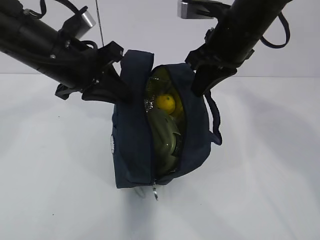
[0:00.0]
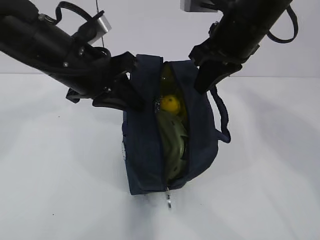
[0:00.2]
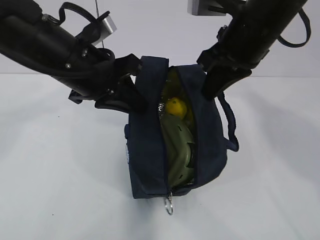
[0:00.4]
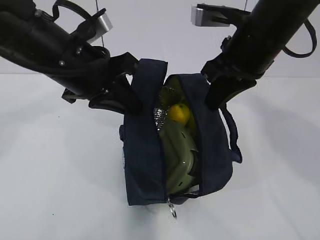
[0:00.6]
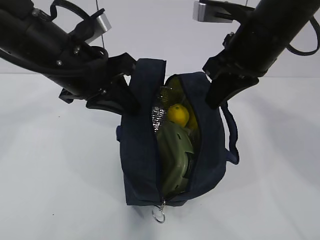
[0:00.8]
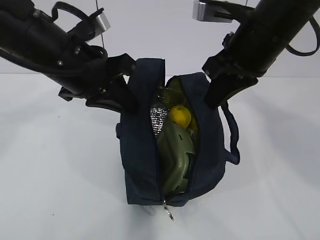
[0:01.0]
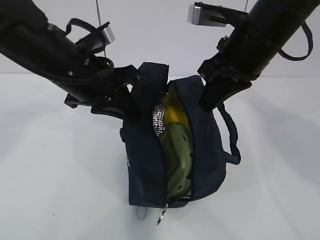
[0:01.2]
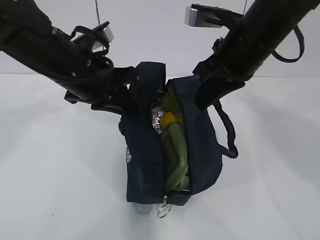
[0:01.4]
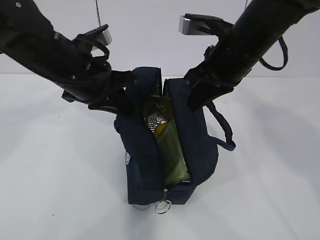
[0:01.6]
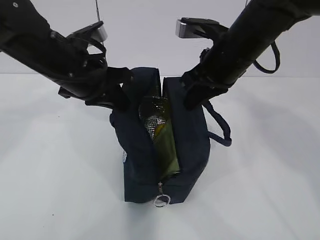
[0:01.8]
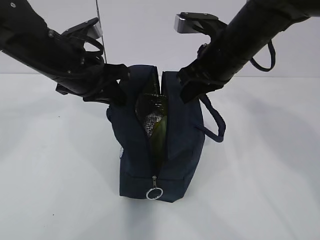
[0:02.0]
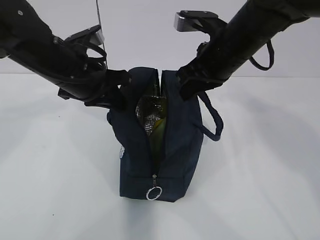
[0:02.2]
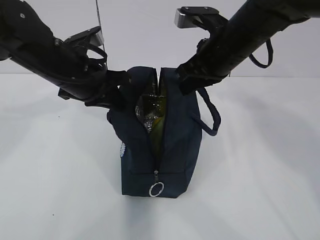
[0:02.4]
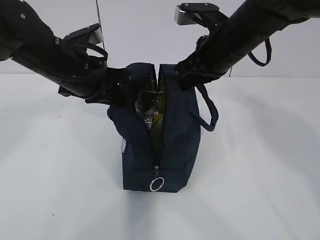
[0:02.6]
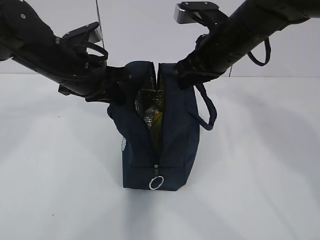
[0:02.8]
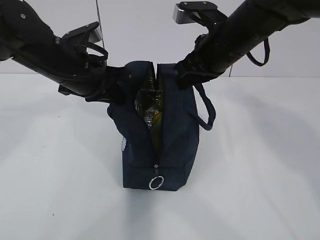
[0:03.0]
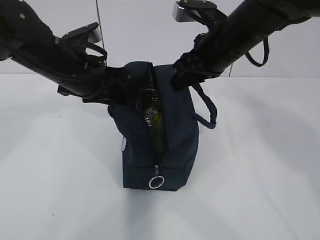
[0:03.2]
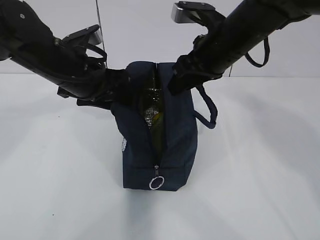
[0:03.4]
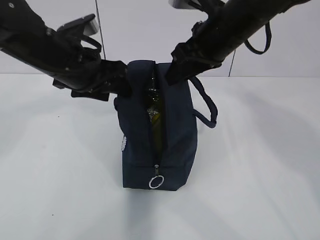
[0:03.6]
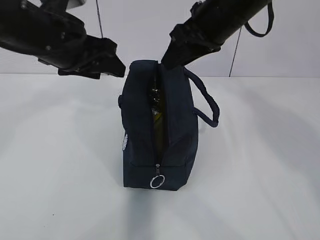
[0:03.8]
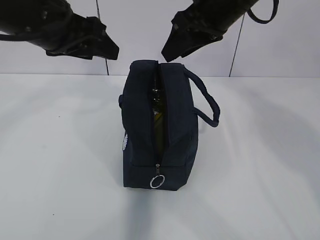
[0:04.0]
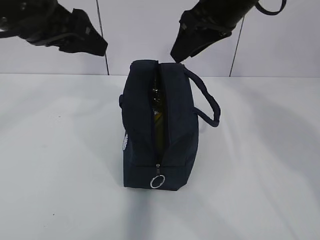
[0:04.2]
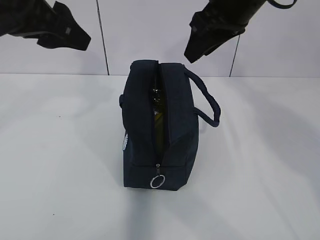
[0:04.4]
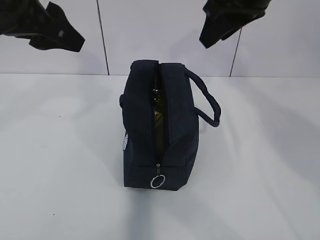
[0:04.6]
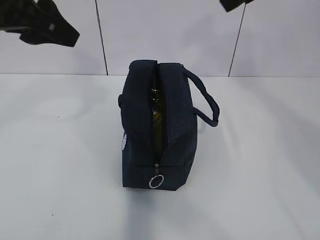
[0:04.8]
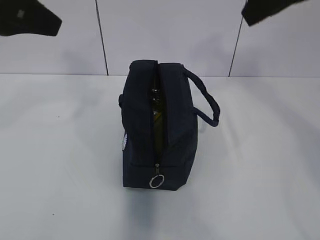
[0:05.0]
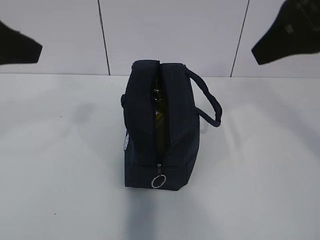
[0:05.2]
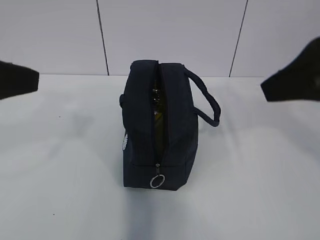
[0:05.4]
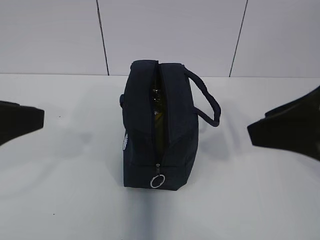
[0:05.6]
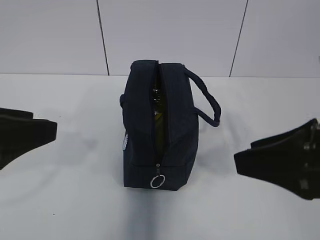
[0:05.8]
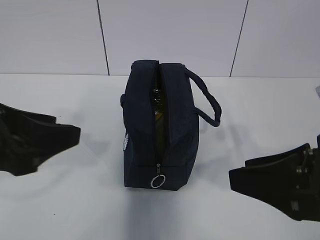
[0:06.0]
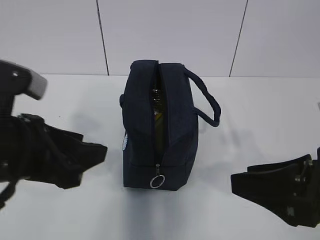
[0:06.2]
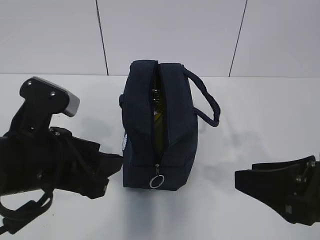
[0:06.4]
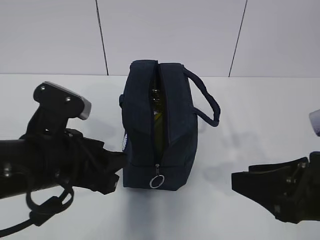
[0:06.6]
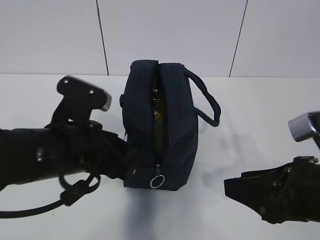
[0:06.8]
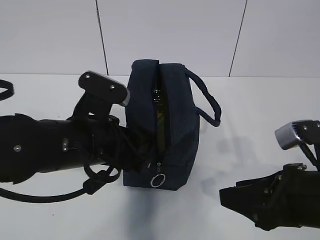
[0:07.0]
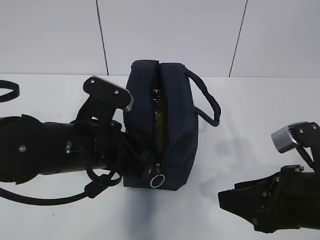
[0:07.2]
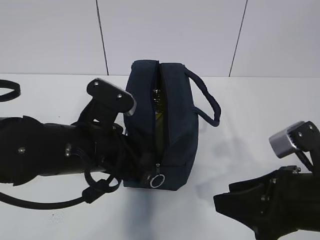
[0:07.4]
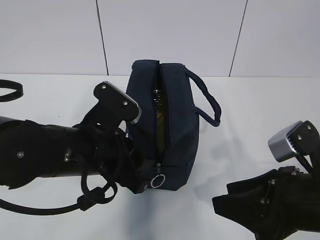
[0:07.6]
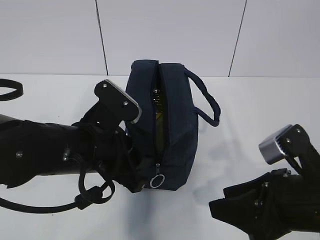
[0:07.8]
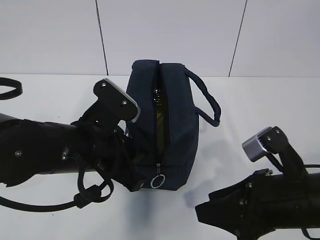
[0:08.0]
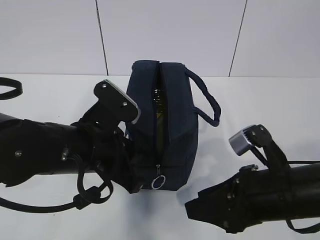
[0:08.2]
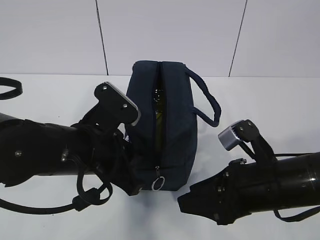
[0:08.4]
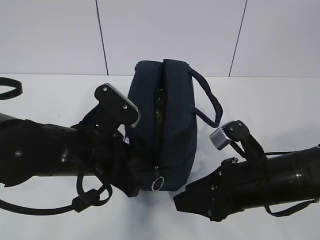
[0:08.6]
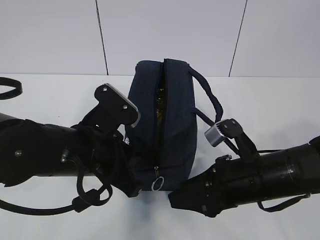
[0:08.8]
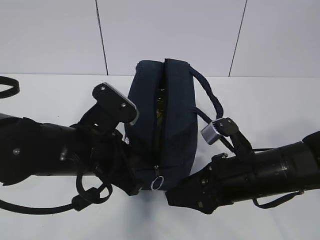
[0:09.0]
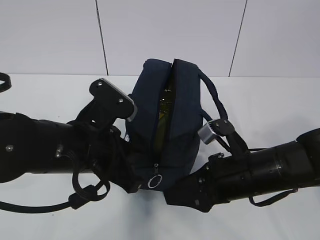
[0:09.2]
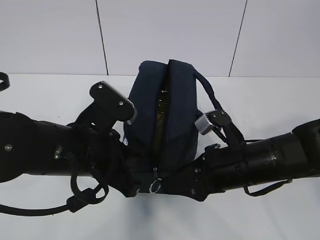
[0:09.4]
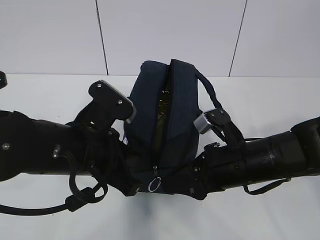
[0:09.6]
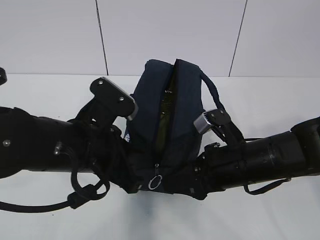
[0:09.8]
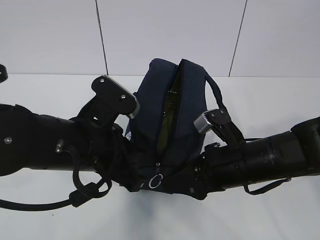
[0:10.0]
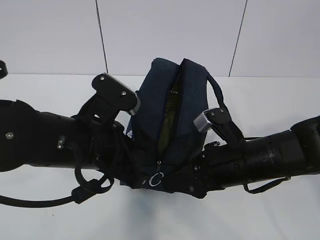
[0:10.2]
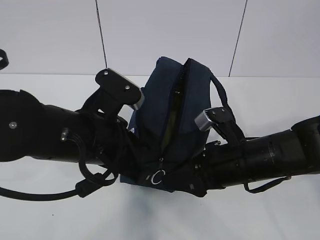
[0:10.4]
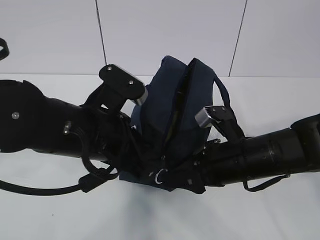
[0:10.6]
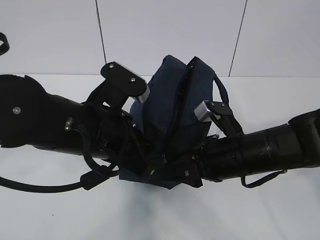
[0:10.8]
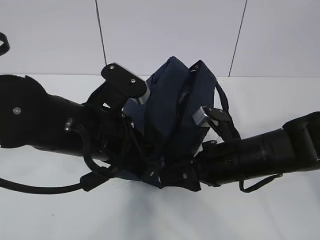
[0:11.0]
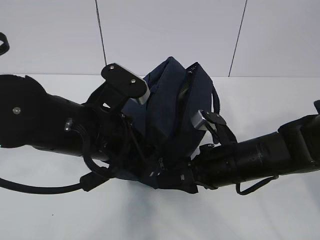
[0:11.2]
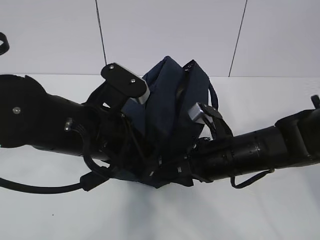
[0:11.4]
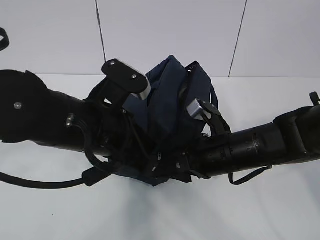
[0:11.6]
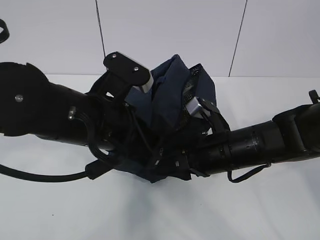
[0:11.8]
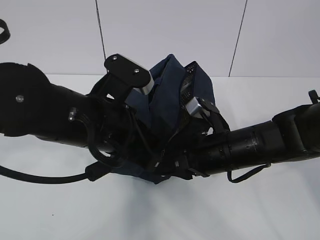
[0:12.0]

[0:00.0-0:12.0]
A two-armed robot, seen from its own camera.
0:00.0 to 0:03.0: The grippers make only small movements.
0:03.0 to 0:04.4: The right gripper travels upward by roughly 10 cm, and opens its fingers, while the left gripper shifts roughly 15 cm upward and backward, and opens.
0:04.4 to 0:06.0: The left gripper is displaced backward and downward by roughly 15 cm. The right gripper is displaced backward and downward by roughly 25 cm.
0:06.0 to 0:07.6: The left gripper heads to the right, downward and forward, covering some 15 cm. The right gripper travels downward by some 5 cm.
0:07.6 to 0:09.0: The right gripper travels forward and downward by some 10 cm. The left gripper closes its fingers.

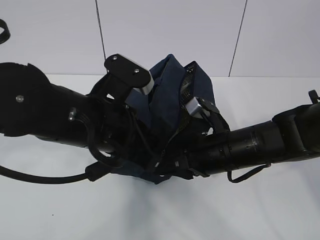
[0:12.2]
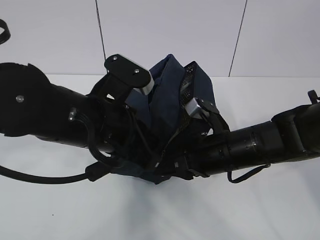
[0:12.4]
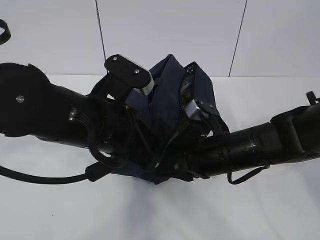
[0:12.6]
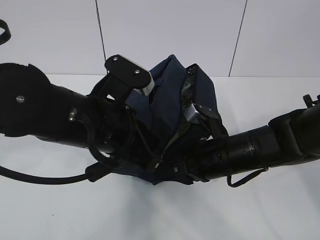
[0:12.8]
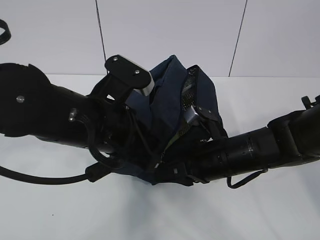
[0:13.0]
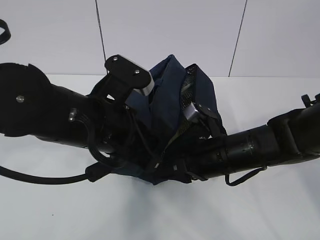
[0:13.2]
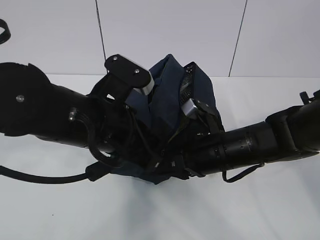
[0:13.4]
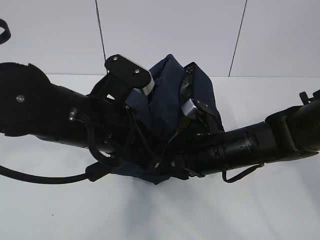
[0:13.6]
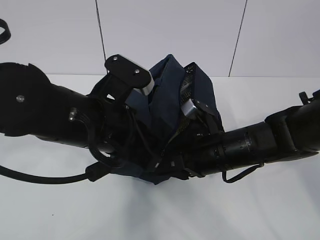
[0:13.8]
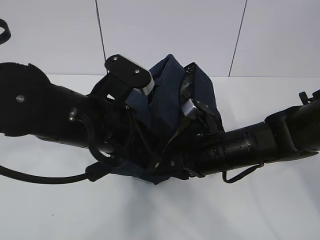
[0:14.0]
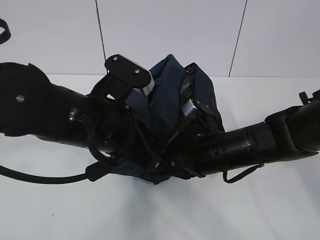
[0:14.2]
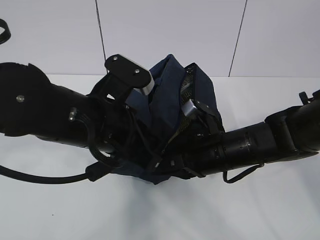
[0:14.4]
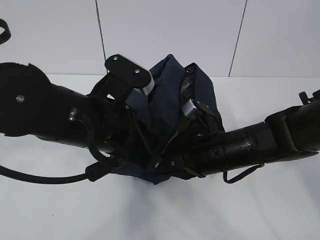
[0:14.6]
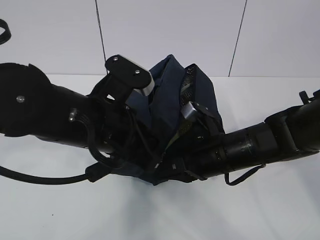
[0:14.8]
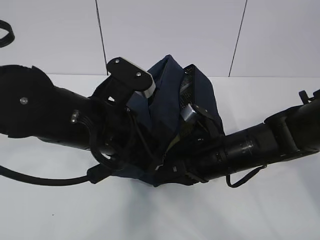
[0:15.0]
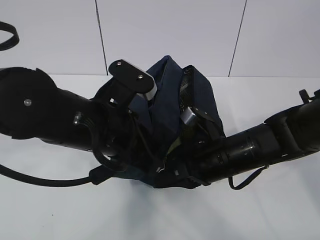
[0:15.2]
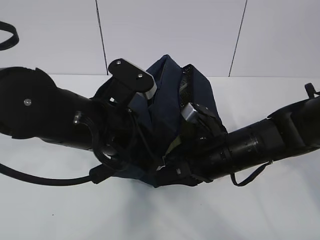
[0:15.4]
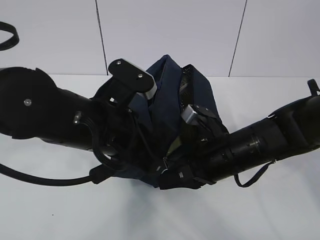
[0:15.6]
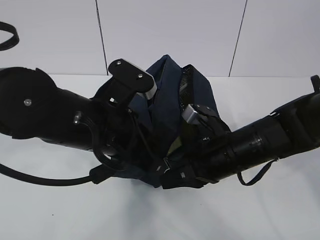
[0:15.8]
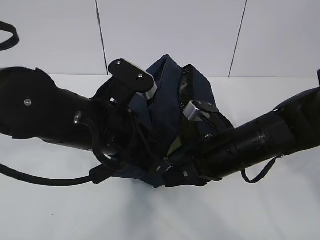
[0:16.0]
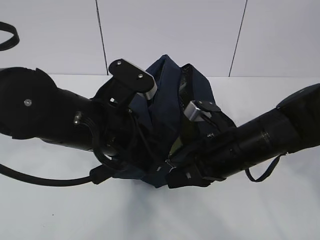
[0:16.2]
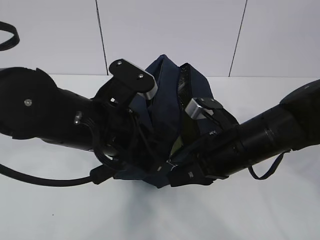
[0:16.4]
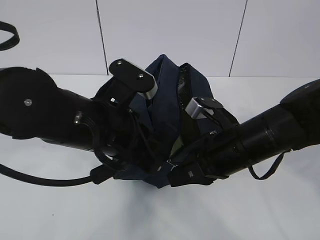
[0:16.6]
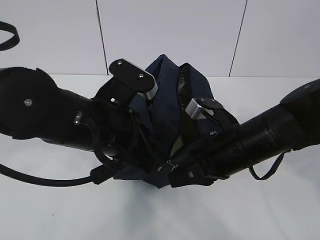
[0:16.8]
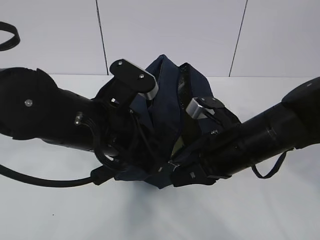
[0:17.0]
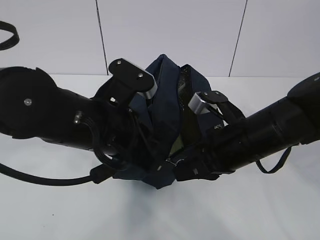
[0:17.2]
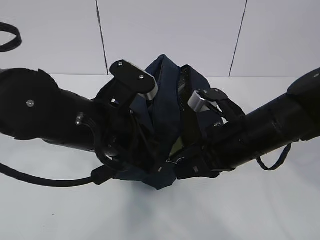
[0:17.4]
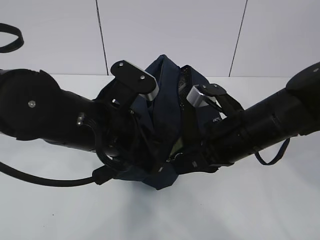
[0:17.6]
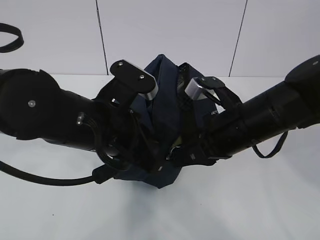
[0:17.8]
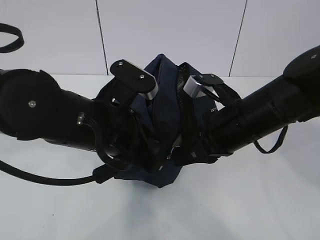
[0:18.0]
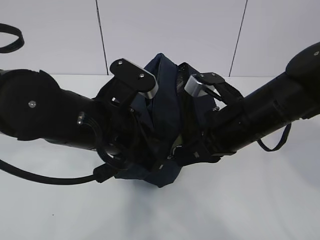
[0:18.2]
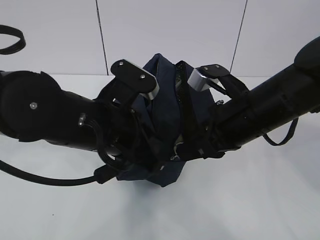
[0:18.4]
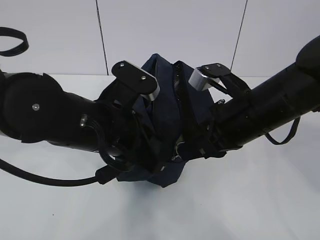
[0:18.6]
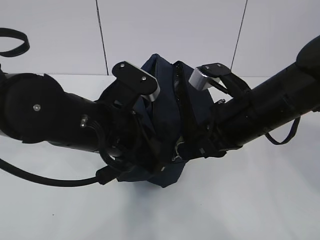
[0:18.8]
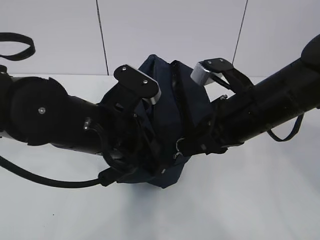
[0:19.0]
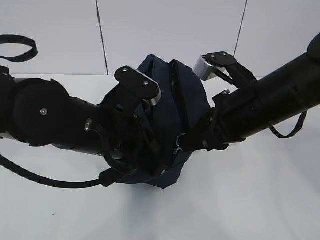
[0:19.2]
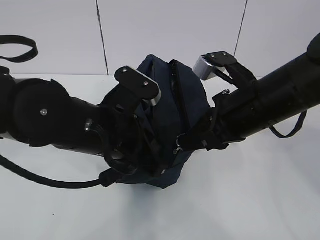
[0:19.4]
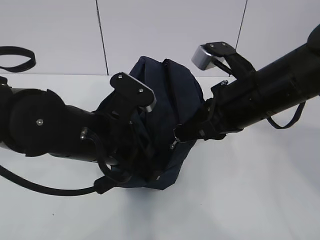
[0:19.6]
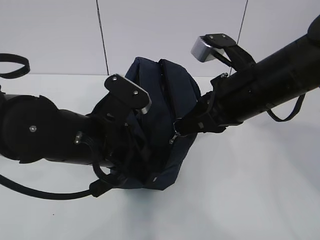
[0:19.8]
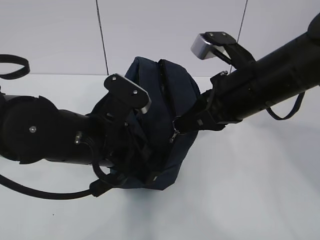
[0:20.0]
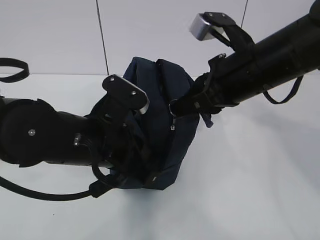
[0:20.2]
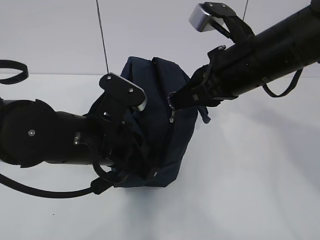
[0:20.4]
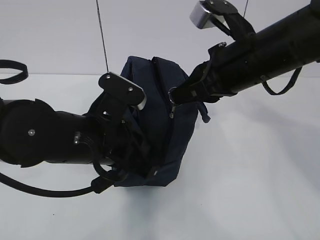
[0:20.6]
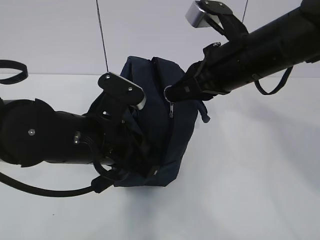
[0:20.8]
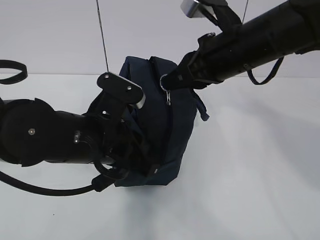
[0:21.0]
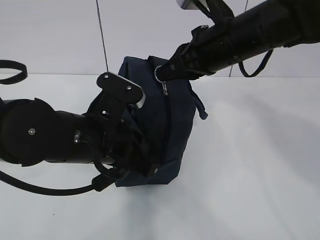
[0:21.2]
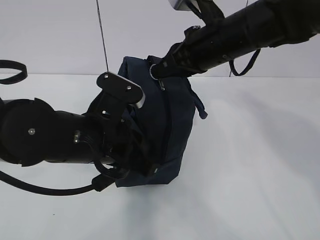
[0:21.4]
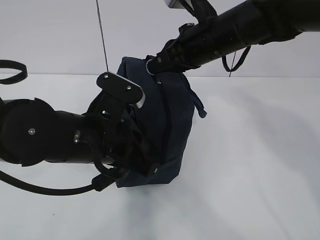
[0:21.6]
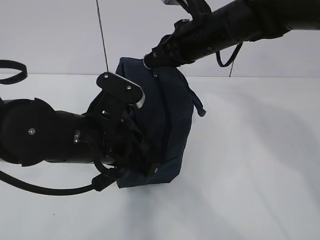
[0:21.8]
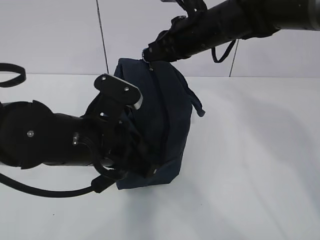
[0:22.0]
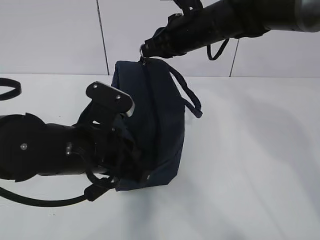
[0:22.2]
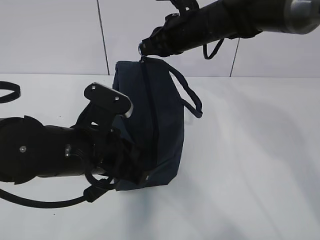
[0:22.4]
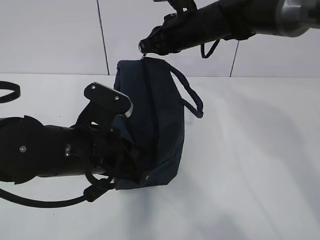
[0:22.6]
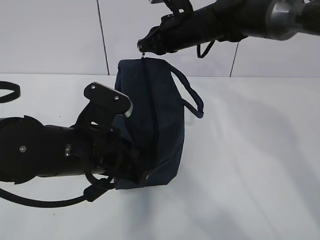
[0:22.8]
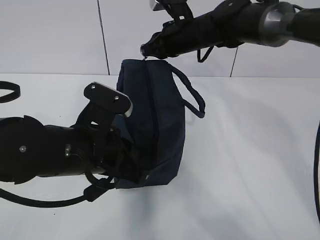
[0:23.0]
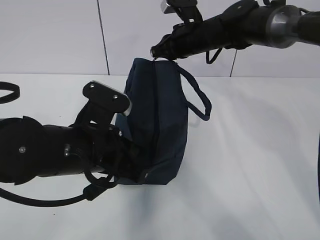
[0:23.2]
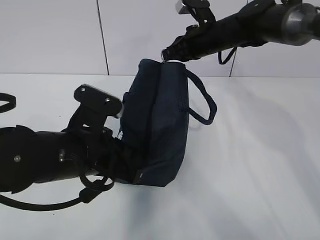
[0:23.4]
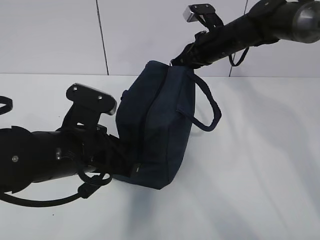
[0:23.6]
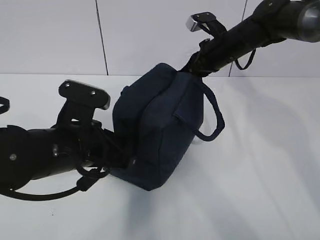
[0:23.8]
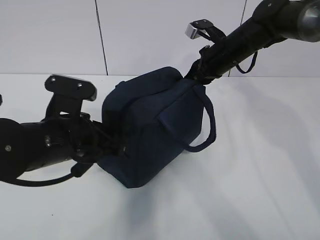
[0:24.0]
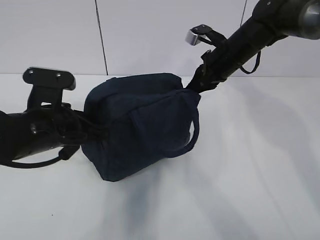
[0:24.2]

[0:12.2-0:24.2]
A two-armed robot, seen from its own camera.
Step, 0:14.4 to 0:23.6: Move the lunch bag to the left.
0:12.2 to 0:16.6: There are only small adjustments of the grippers.
0:16.6 to 0:18.2: The grippers move only a little.
0:18.2 to 0:19.8: The right gripper heads upward, covering roughly 5 cm.
0:19.8 to 0:21.2: The right gripper is displaced forward by approximately 5 cm.
0:21.2 to 0:22.6: The right gripper goes some 10 cm forward.
0:22.6 to 0:24.2: The left gripper shifts roughly 5 cm to the left. The right gripper heads to the right and downward, covering roughly 10 cm.
